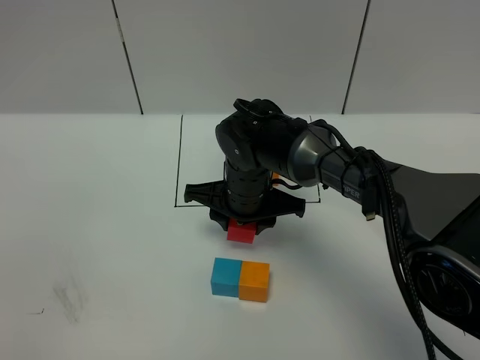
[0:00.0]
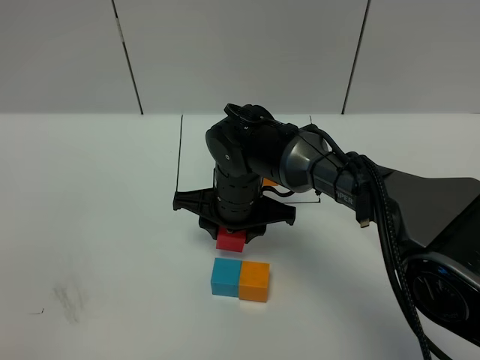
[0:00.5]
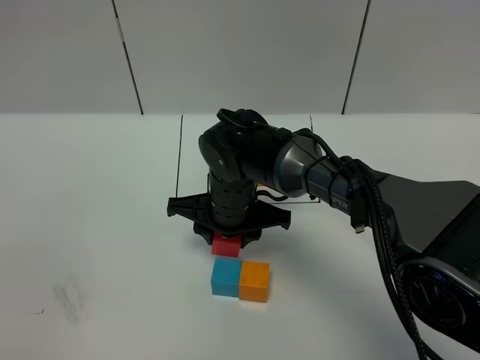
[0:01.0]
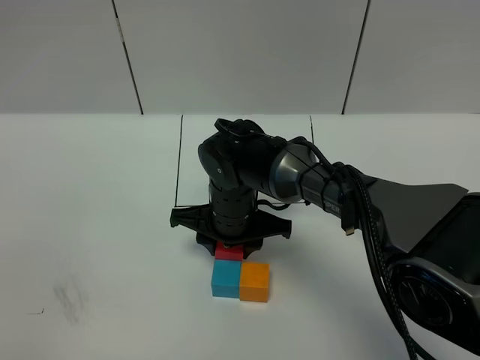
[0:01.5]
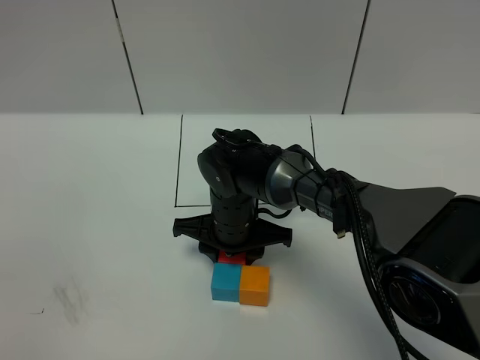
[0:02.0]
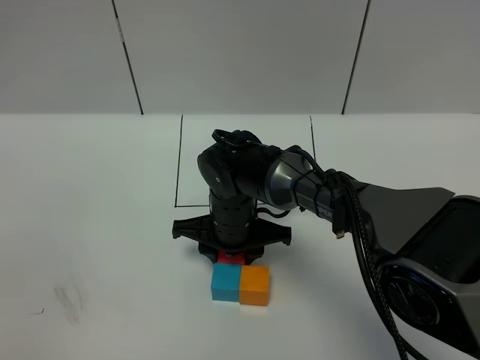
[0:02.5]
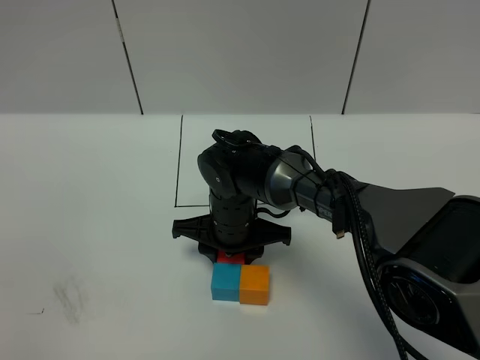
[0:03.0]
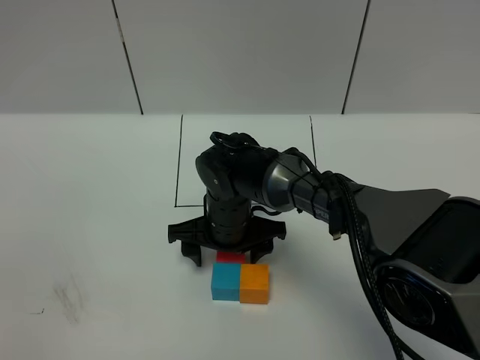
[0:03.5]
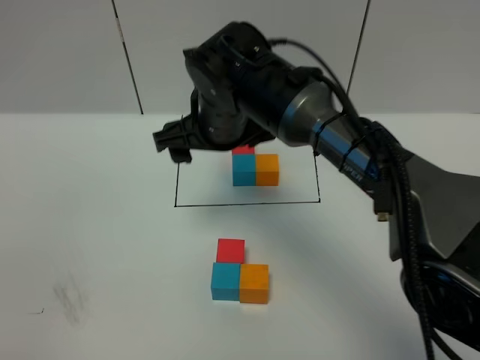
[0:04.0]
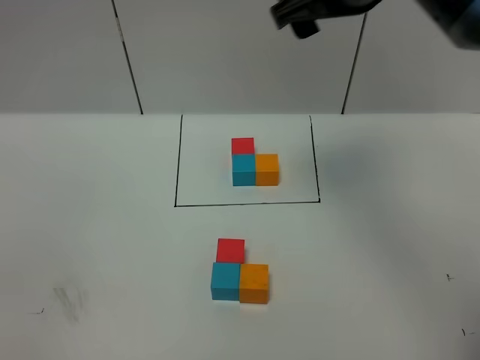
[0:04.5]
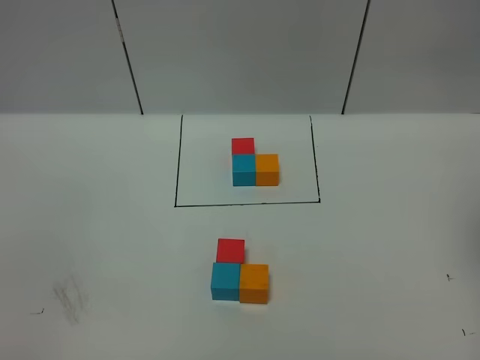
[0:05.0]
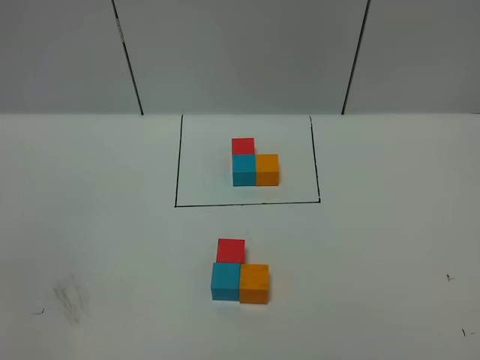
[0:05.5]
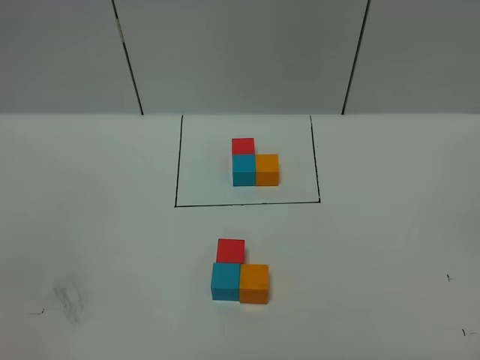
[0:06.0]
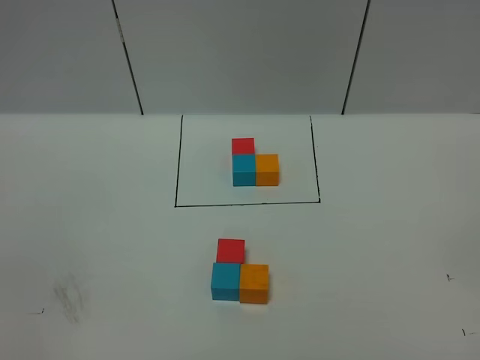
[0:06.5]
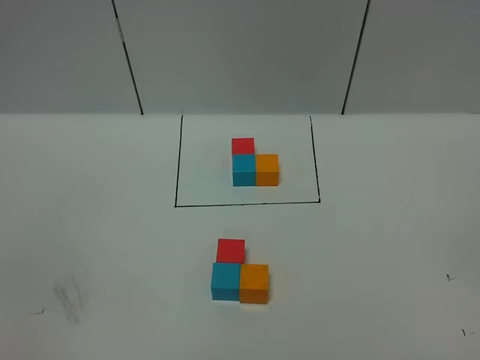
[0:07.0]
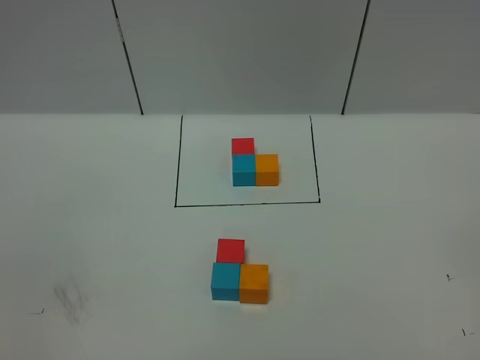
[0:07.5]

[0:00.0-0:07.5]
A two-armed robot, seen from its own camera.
Task of the whole recording: According to the building block template in front, assemble the scattered blocks together.
Step, 0:00.0 to 0:03.5: Put the red cube on the behind of the blue cube.
0:00.0 to 0:02.0: The grippers stay close to where they were, moving slightly.
0:02.0 to 0:04.0: The right gripper moves upward, roughly 15 cm, and opens.
0:04.0 to 0:05.5: The right gripper travels backward and to the right by about 50 cm.

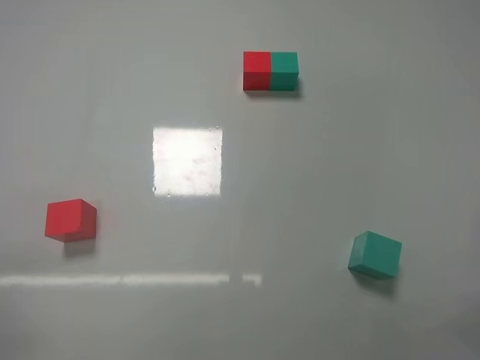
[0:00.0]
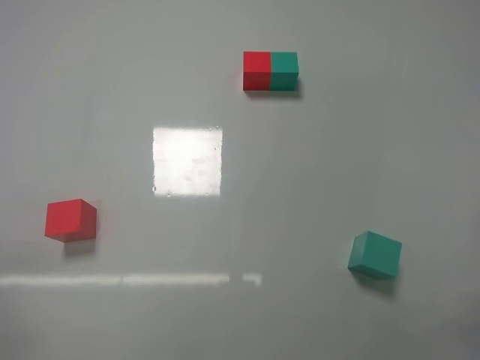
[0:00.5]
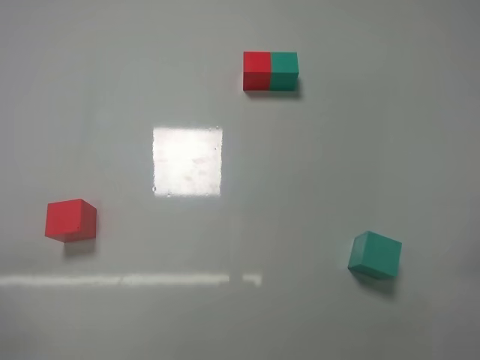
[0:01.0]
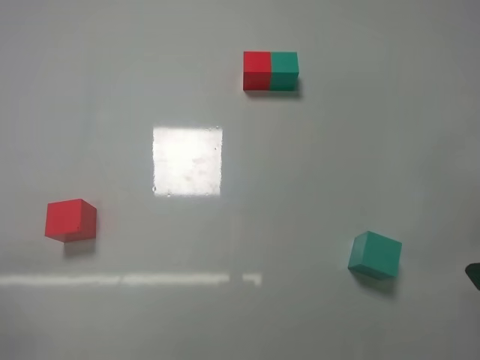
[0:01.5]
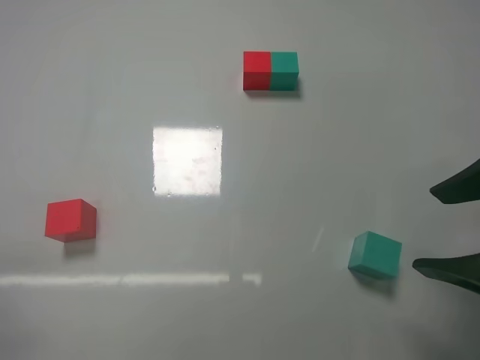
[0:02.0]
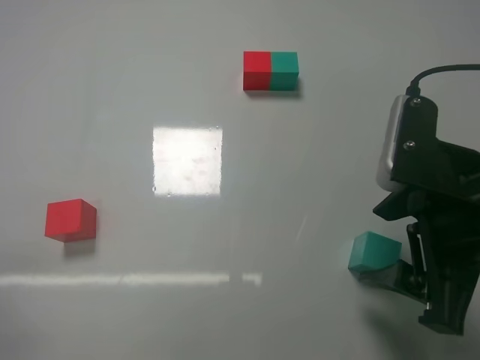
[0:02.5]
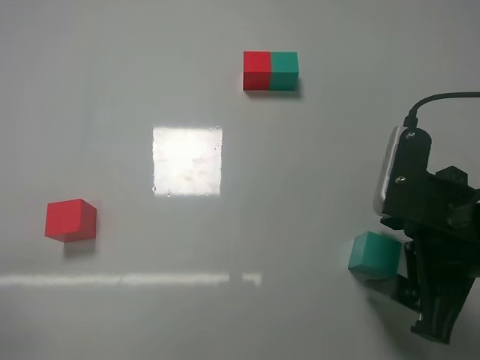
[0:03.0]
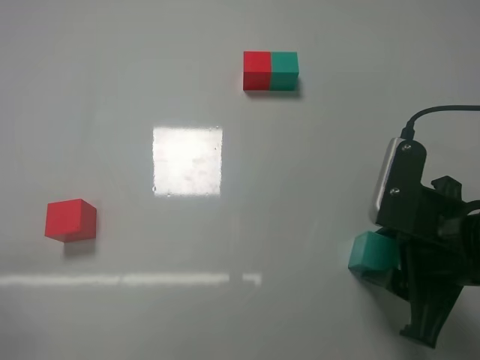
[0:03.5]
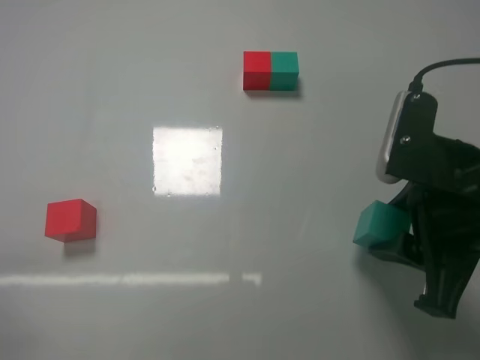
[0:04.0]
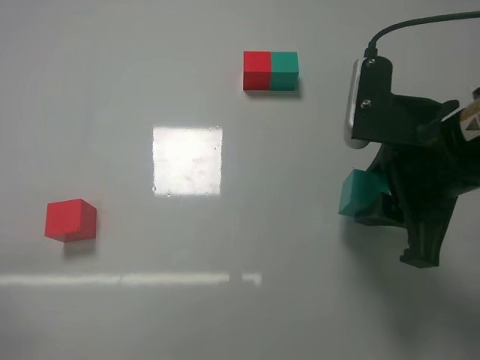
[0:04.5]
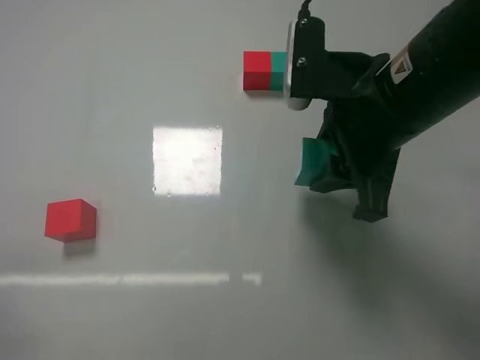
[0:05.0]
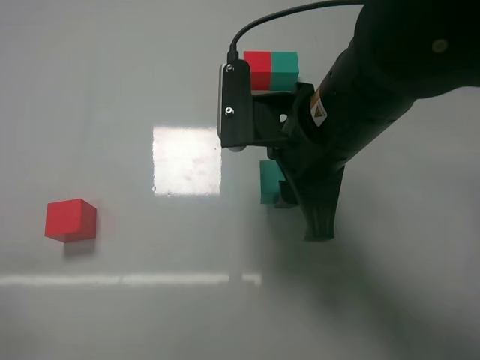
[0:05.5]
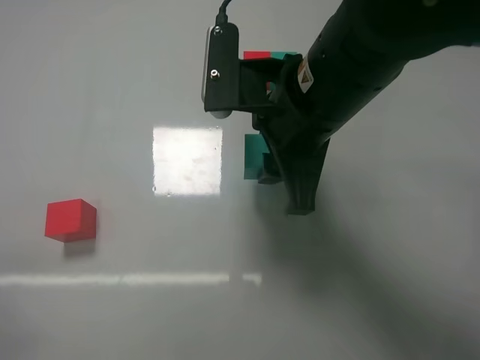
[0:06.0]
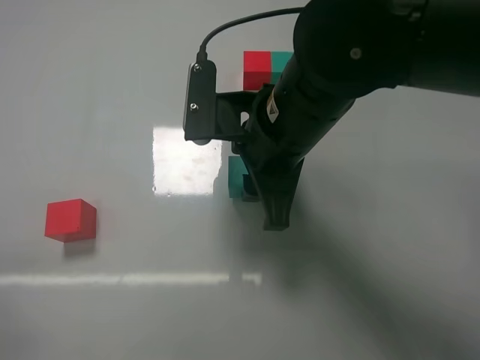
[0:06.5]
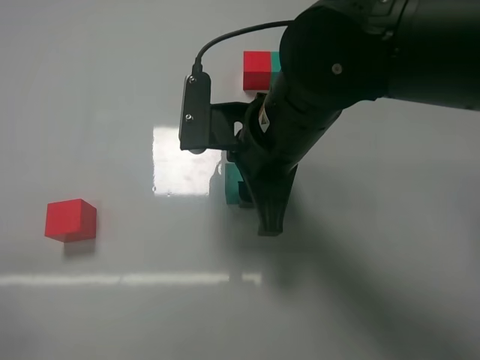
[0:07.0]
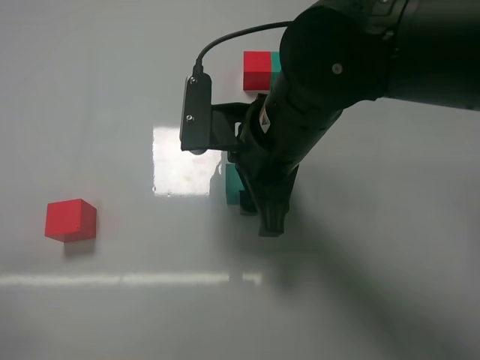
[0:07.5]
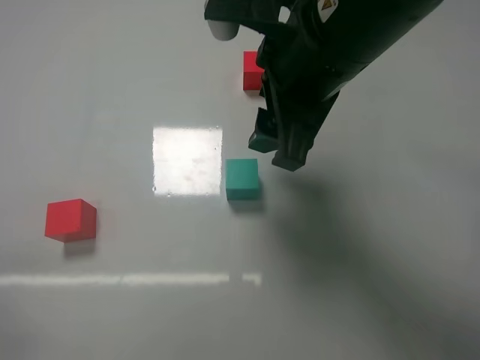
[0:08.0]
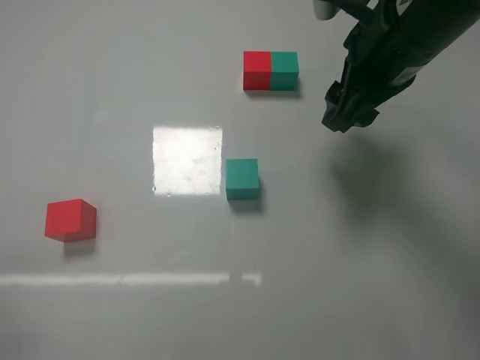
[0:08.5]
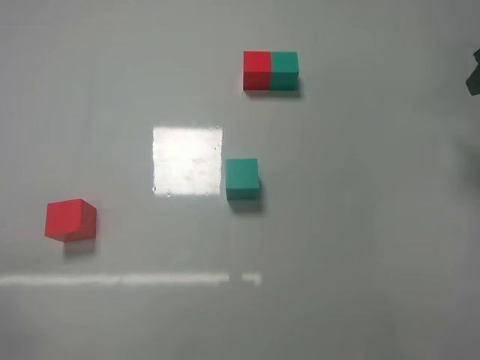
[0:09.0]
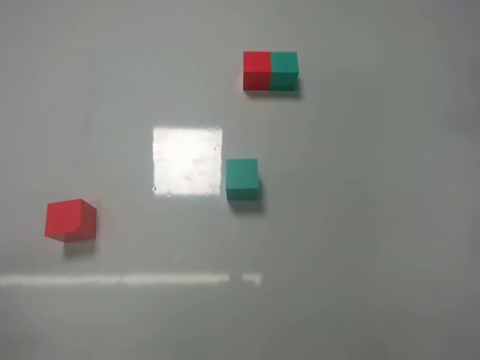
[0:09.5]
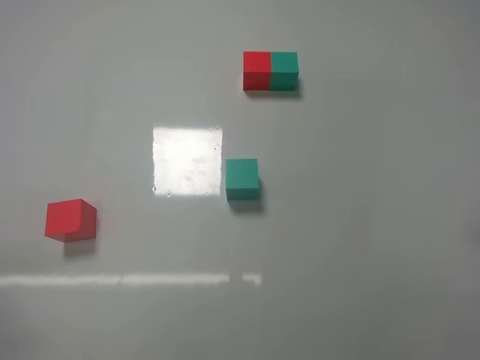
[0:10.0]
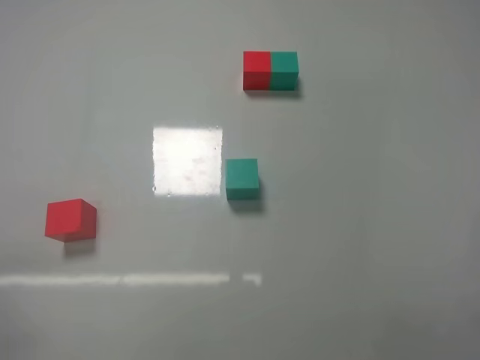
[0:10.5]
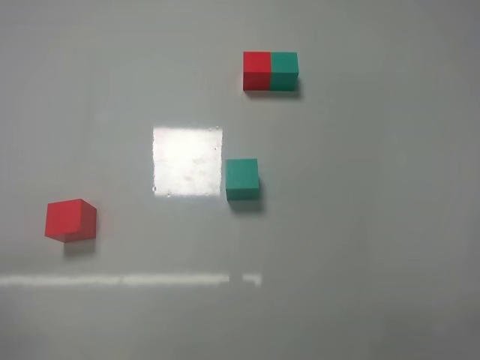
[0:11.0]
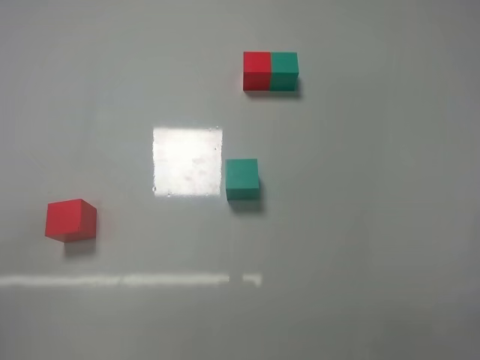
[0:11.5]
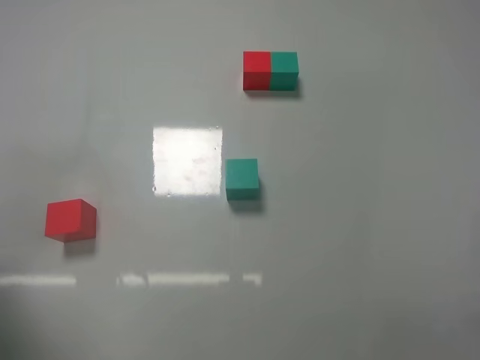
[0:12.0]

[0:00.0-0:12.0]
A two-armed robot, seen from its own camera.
Task of the whole recording: According to the building block template in front, assemble the scattered blocks together.
Step, 0:00.0 to 0:03.5: Grasp the green block with right gripper.
Step, 0:04.0 to 0:07.5: Adjust the position of the cube with the right gripper.
0:00.0 to 0:02.0: The right gripper goes roughly 15 cm forward, upward and to the left.
0:02.0 to 0:04.0: The right gripper closes its fingers.
0:04.0 to 0:06.0: The right gripper heads to the left and forward, covering about 15 cm.
0:06.0 to 0:08.0: The right gripper heads upward, covering some 5 cm, and opens up.
0:08.0 to 0:10.0: The right gripper moves to the right and backward, about 30 cm.
0:10.0 to 0:12.0: The left gripper shifts some 20 cm forward and upward.

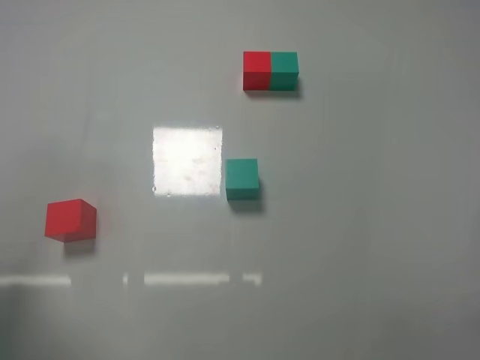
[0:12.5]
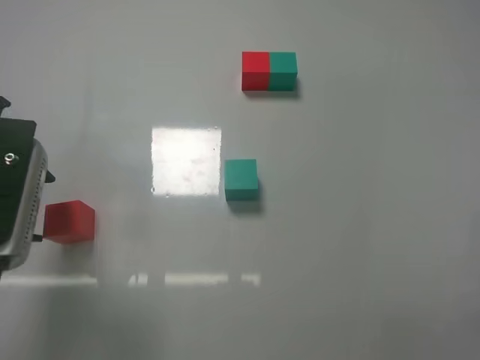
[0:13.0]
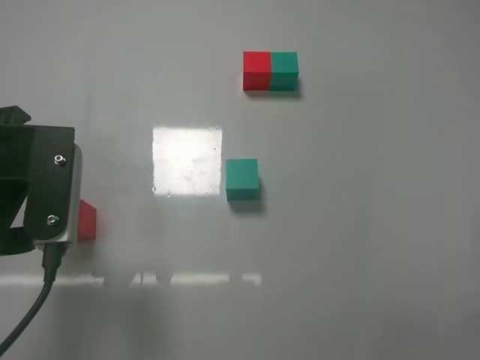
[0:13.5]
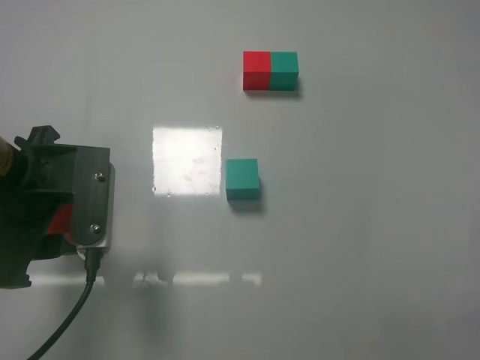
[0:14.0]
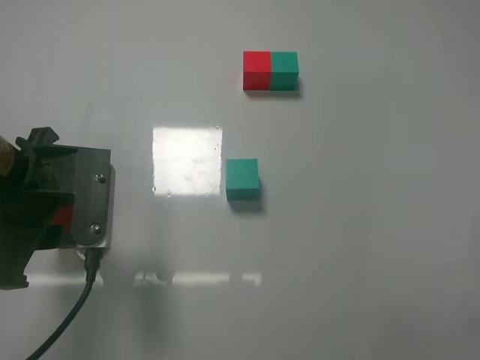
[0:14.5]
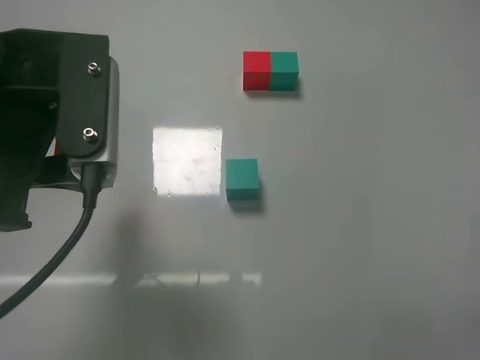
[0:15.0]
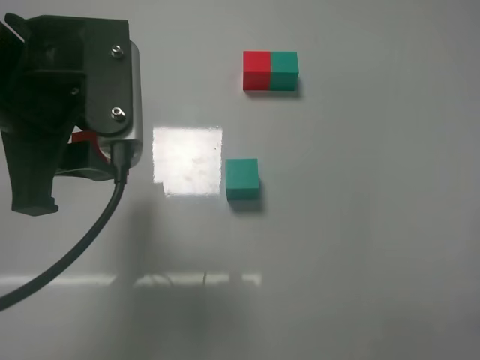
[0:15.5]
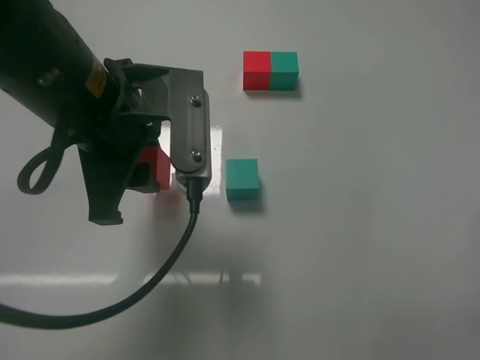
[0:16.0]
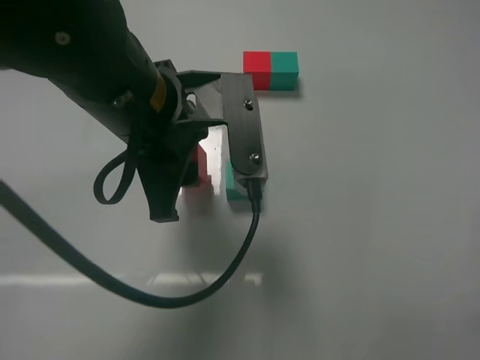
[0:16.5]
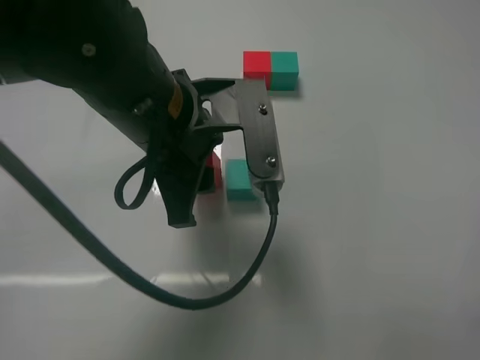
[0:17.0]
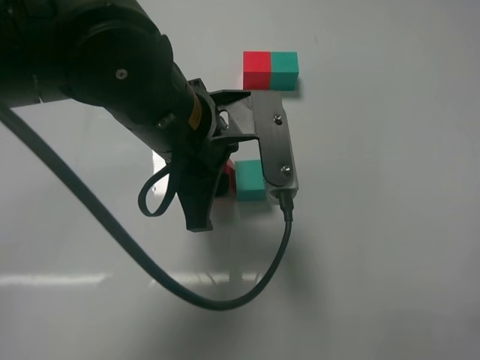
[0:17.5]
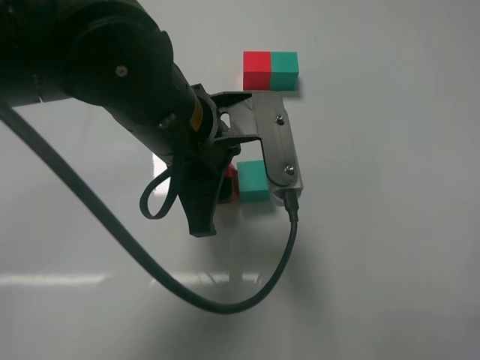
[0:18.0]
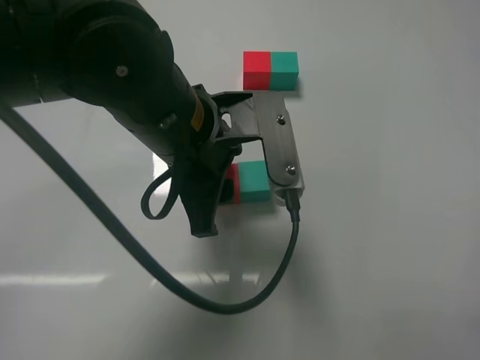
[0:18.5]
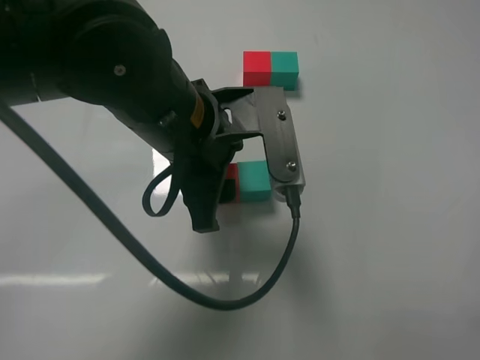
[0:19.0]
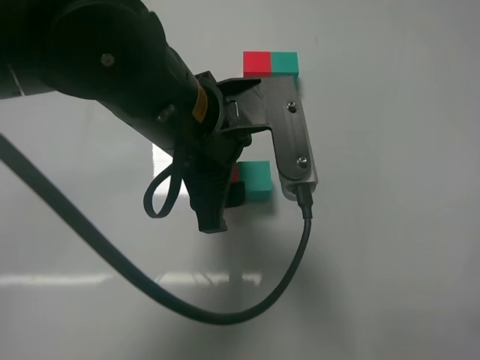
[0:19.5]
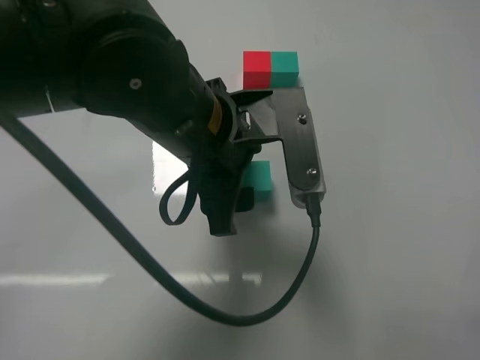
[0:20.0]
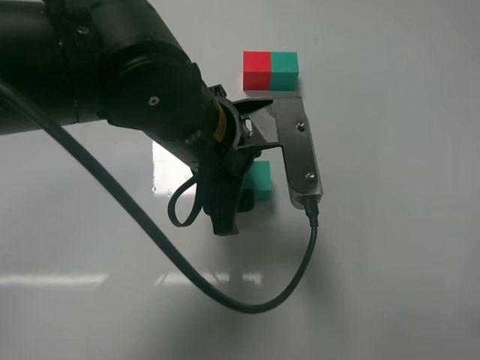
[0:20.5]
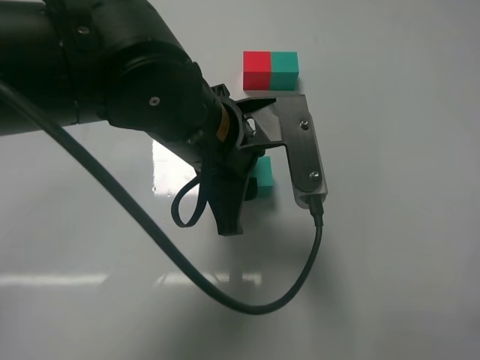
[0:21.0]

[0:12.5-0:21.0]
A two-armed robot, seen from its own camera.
Task of the whole recording: According to the building block template in front, assemble the scattered blocks together.
Step, 0:14.5 to 0:19.5: Put the red cube on the left of the green cube with the left gripper.
0:12.5 to 0:14.5: The left gripper moves to the right, forward and downward, approximately 10 cm, and closes up.
0:14.5 to 0:16.5: The left gripper goes some 15 cm to the right.
0:16.5 to 0:19.0: The left gripper opens up.
0:19.0 to 0:21.0: The left gripper closes up.
